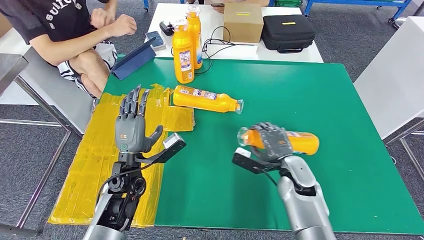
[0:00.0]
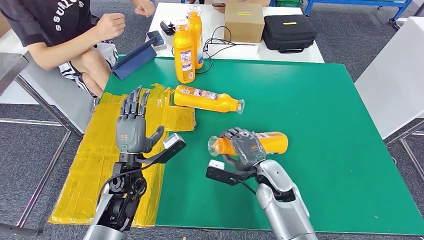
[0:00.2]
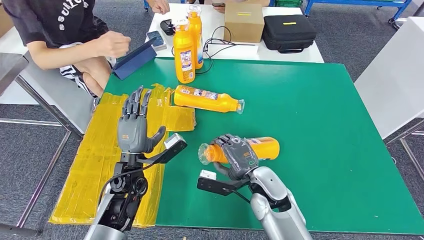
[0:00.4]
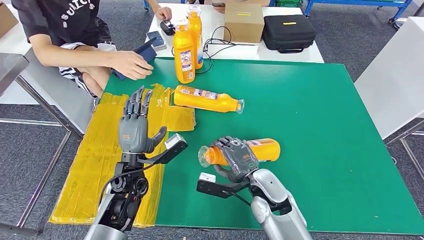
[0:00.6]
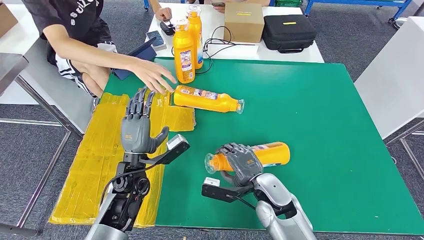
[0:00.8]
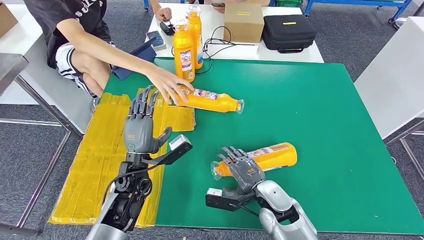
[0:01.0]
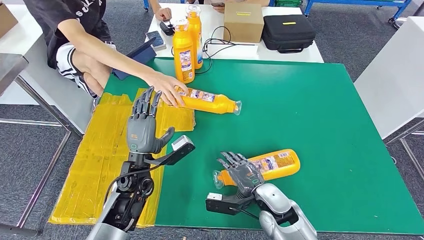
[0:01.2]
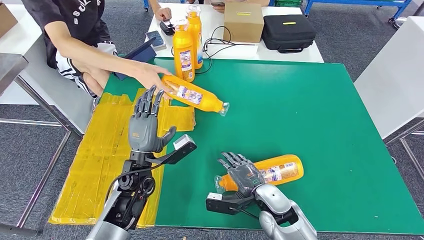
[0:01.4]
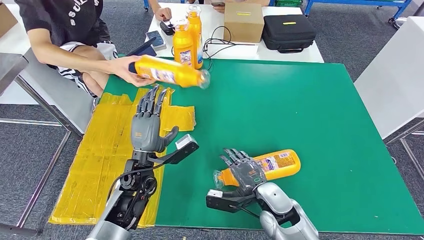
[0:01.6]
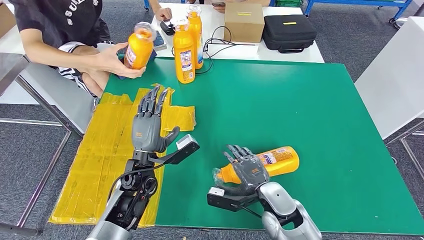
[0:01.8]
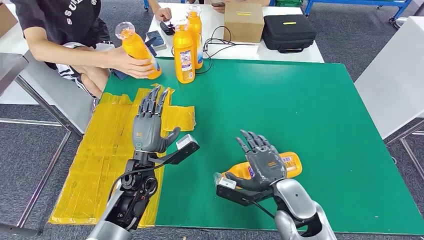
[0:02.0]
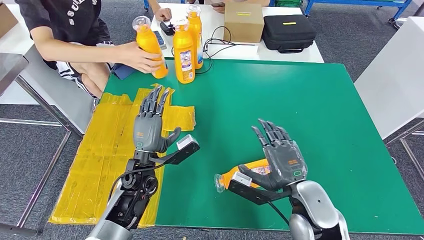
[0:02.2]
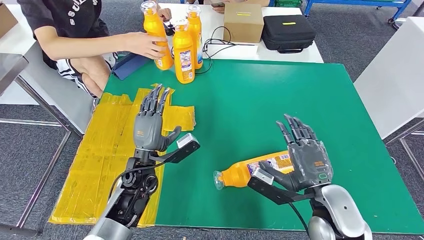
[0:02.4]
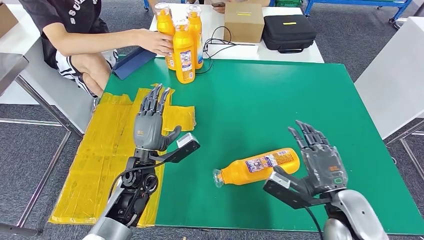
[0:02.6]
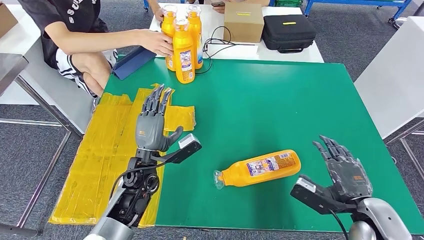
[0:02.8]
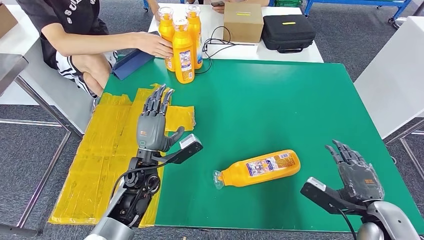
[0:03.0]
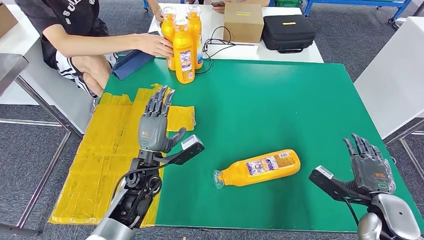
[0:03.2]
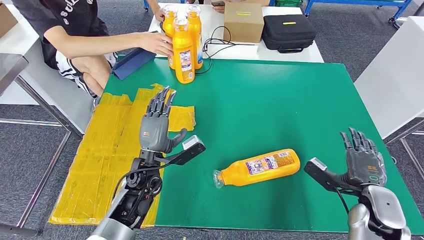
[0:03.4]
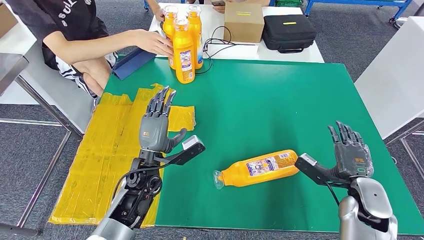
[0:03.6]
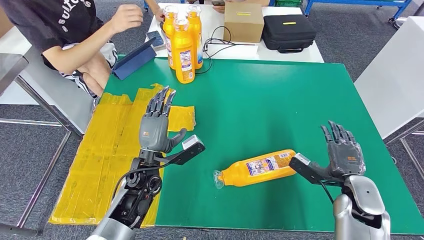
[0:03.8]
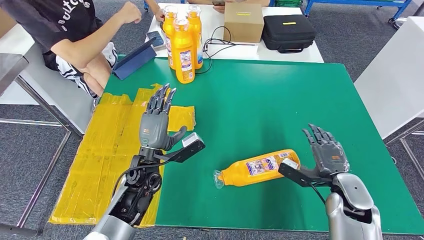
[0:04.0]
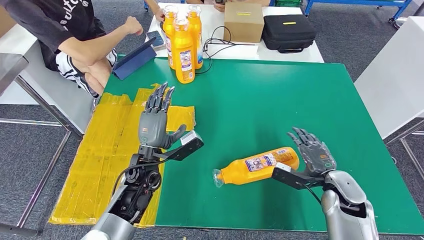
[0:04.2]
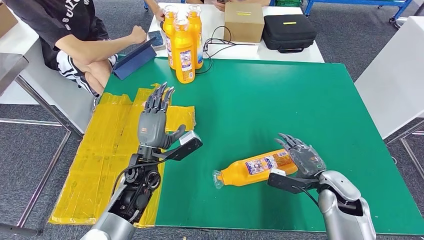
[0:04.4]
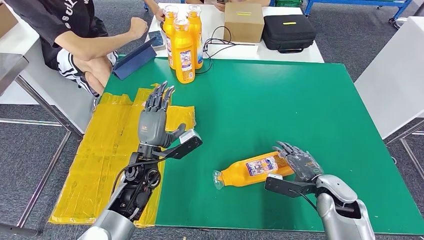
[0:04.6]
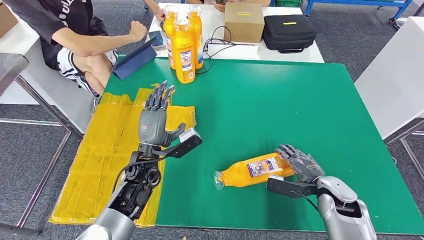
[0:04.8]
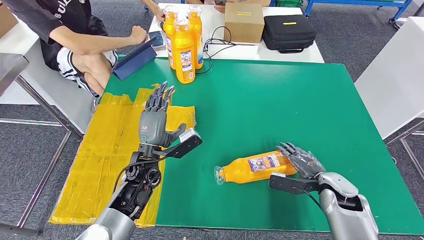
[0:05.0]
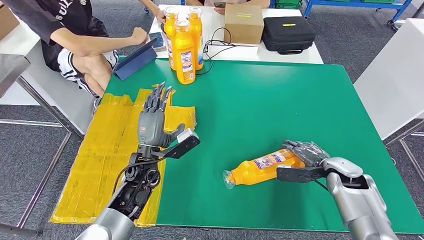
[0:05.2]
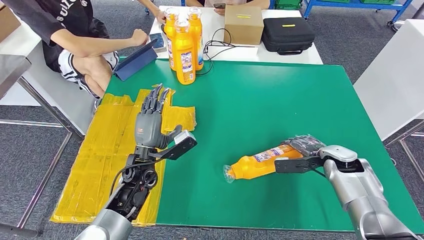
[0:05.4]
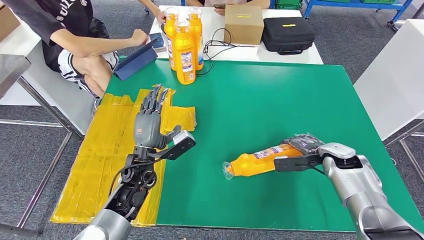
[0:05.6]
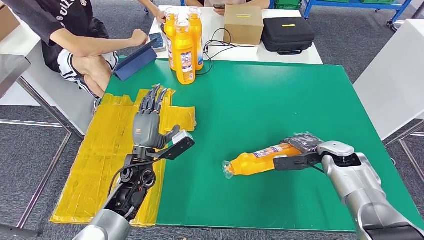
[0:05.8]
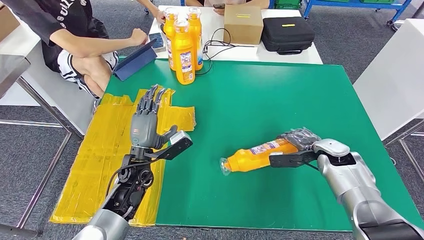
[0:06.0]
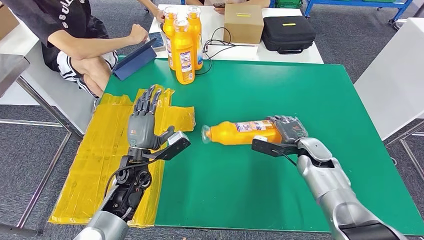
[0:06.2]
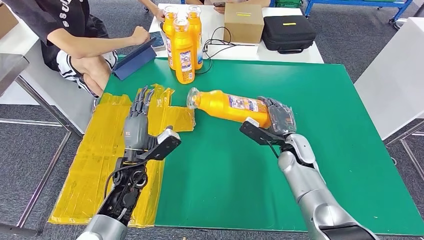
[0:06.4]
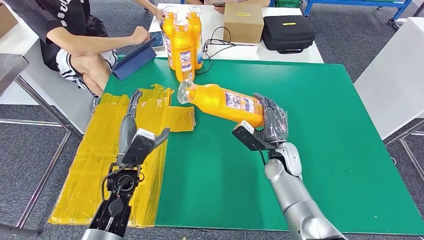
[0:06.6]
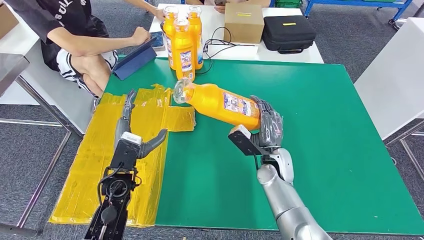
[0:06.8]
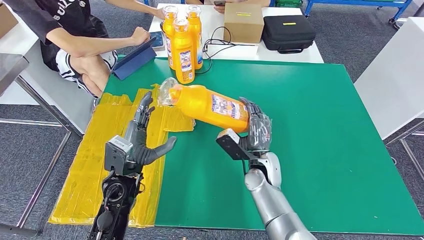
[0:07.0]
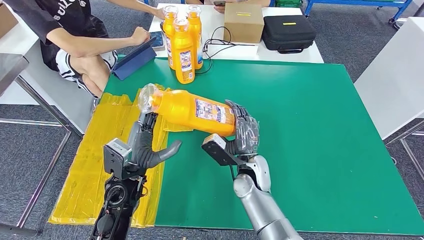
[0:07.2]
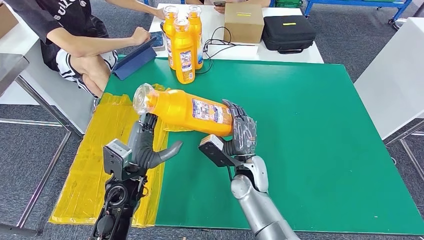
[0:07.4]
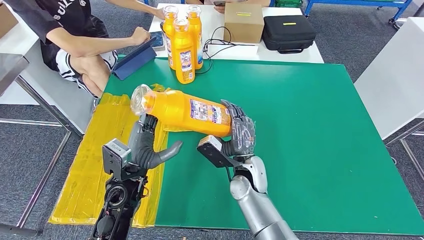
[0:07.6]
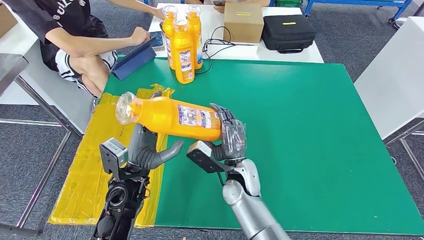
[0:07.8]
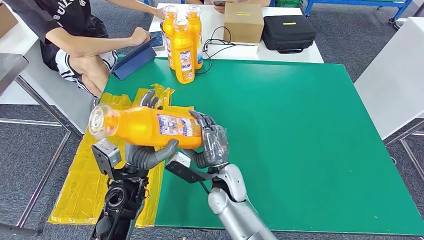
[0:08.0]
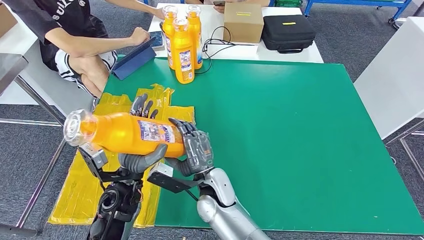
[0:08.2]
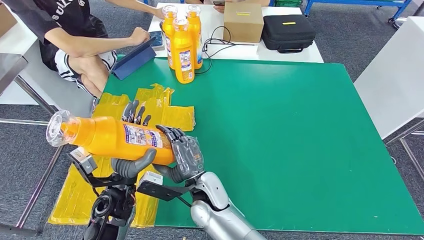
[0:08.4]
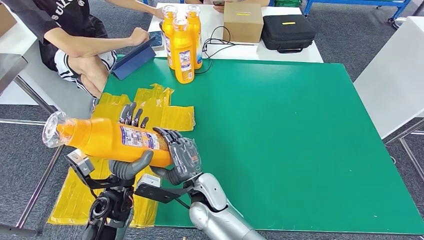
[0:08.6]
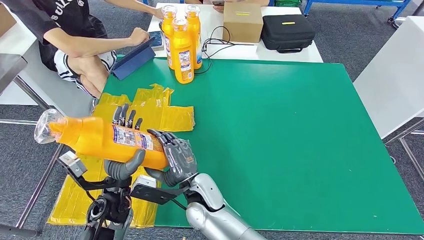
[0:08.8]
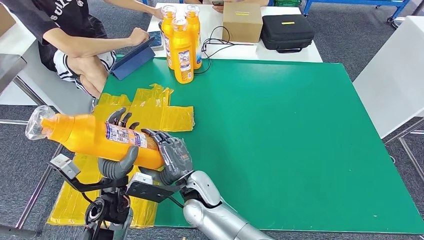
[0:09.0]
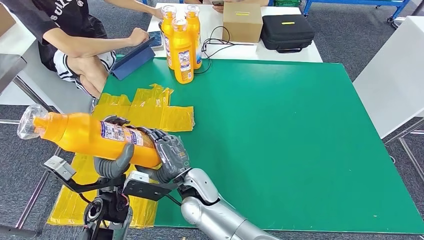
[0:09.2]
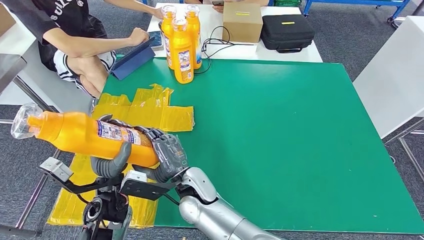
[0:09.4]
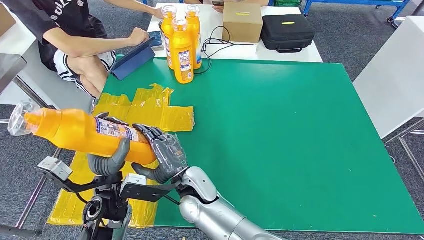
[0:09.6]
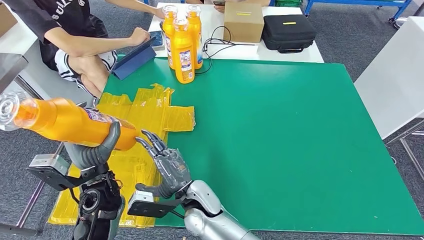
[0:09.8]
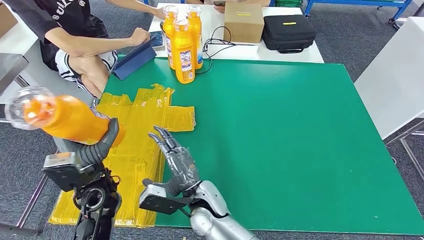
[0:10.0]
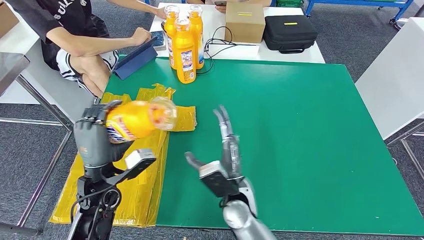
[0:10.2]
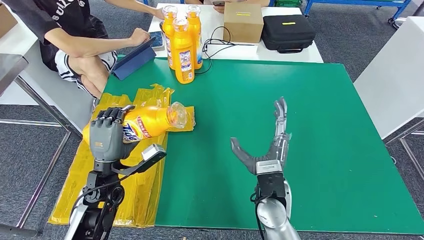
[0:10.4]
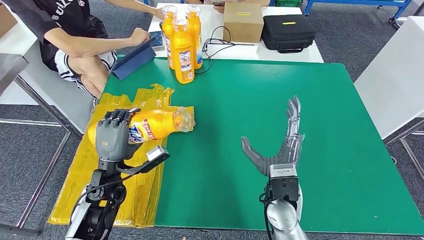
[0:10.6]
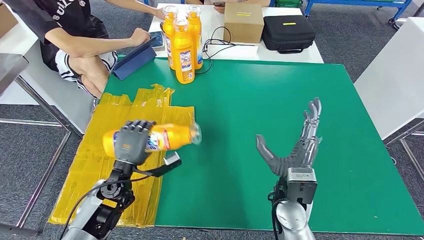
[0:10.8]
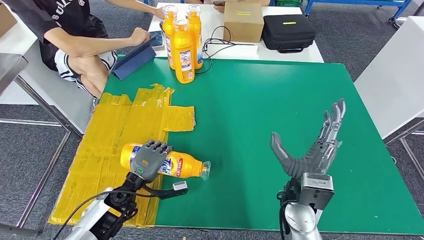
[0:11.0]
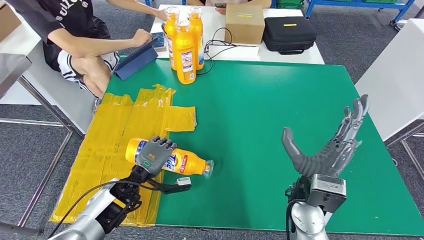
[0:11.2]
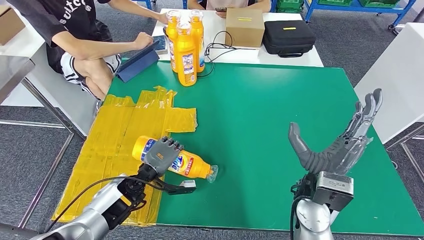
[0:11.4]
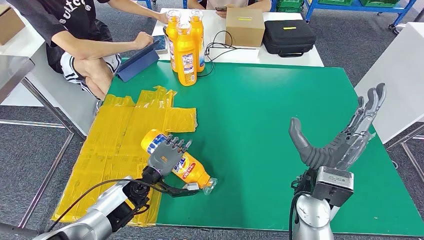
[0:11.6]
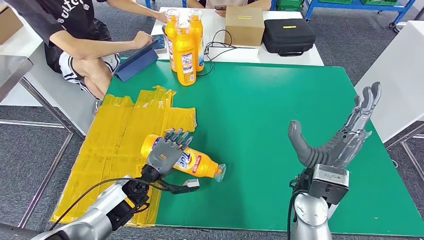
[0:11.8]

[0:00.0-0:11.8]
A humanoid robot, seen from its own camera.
Step, 0:03.0 to 0:07.0: Pick up the fast-moving consumer goods bottle from the table.
Step, 0:07.6 to 0:11.8: Flip the fast-moving consumer goods bottle to the front side.
0:03.0 to 0:04.4: The right hand travels forward and downward by roughly 10 cm.
0:08.8 to 0:10.4: The left hand shifts by about 5 cm. The right hand shifts some 15 cm to the right.
